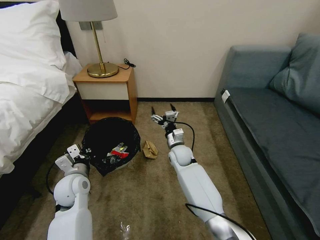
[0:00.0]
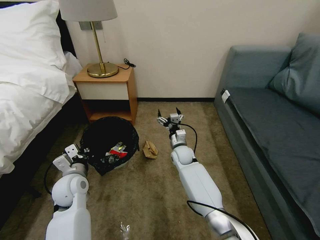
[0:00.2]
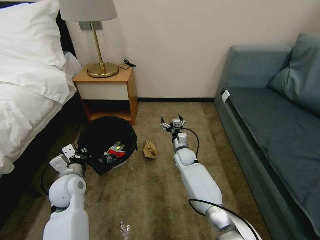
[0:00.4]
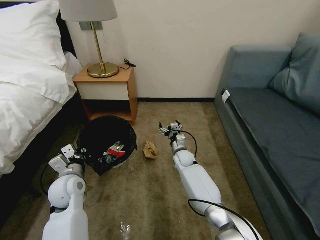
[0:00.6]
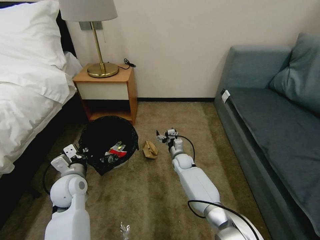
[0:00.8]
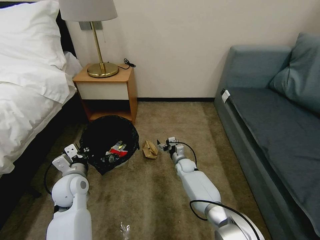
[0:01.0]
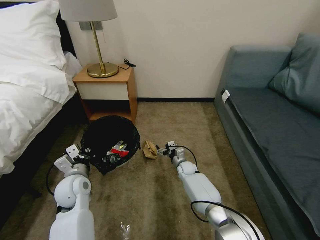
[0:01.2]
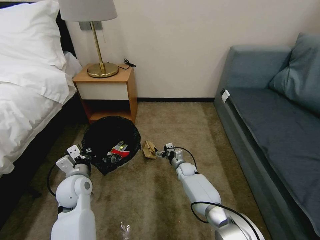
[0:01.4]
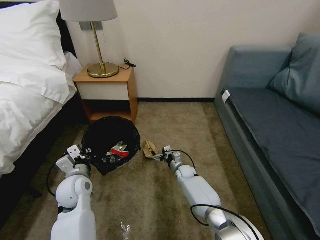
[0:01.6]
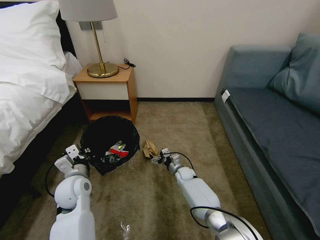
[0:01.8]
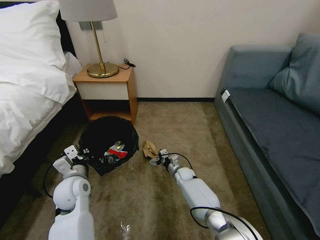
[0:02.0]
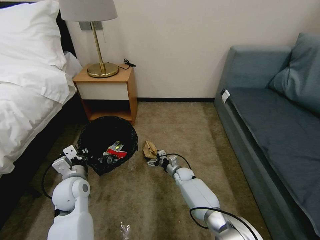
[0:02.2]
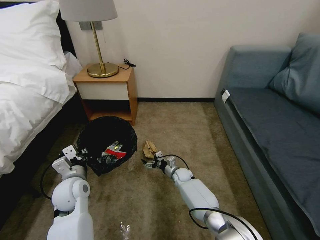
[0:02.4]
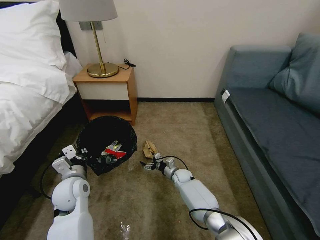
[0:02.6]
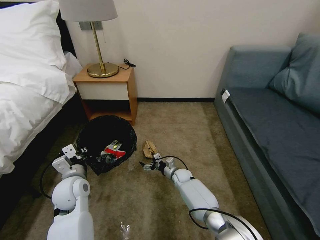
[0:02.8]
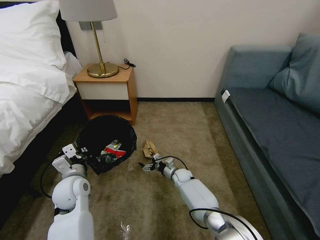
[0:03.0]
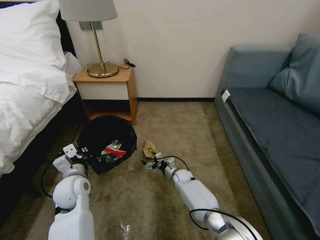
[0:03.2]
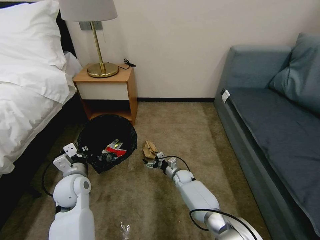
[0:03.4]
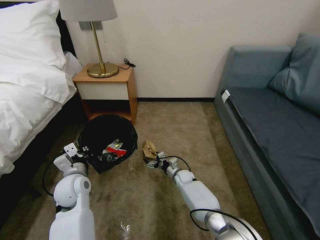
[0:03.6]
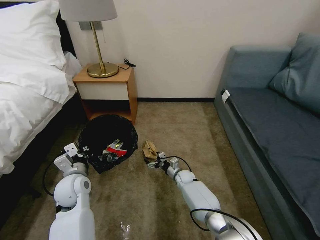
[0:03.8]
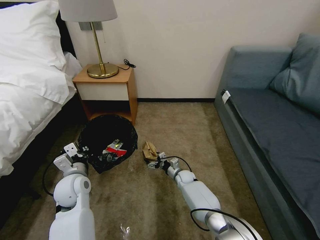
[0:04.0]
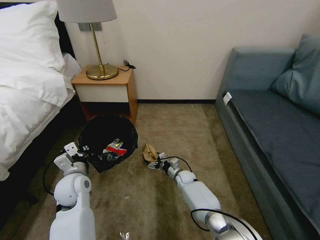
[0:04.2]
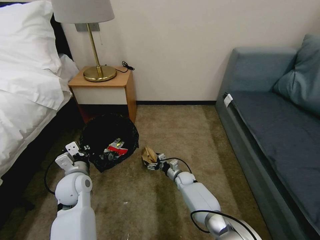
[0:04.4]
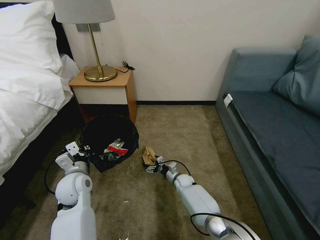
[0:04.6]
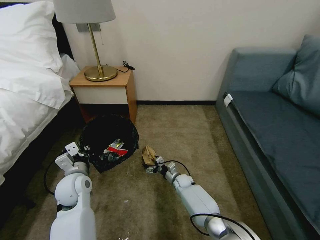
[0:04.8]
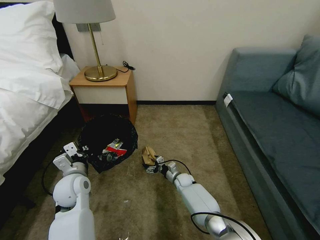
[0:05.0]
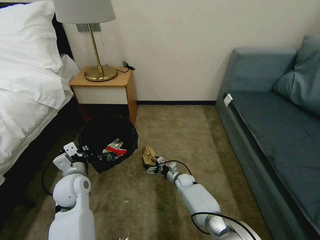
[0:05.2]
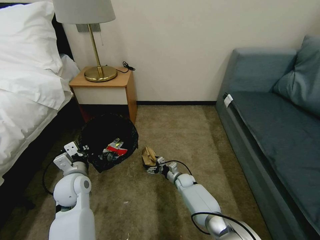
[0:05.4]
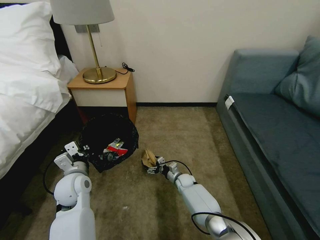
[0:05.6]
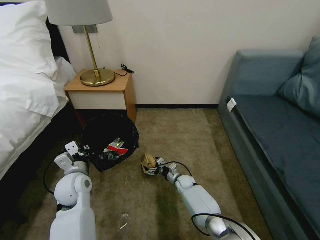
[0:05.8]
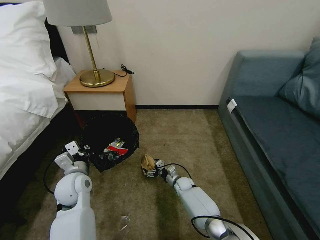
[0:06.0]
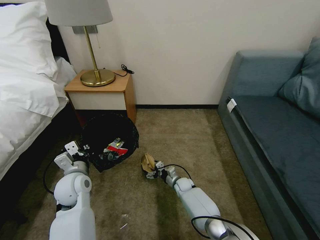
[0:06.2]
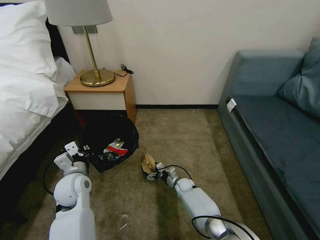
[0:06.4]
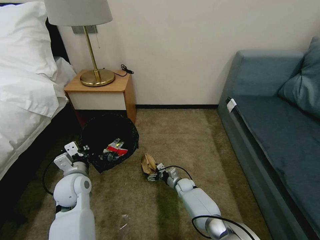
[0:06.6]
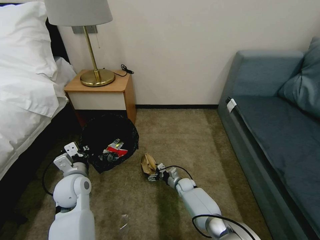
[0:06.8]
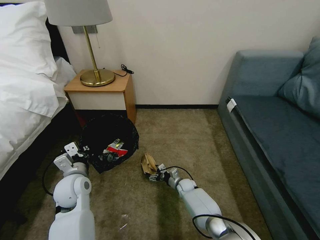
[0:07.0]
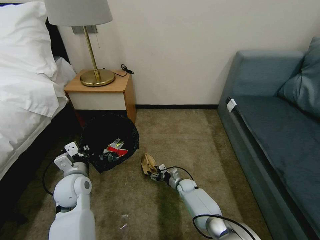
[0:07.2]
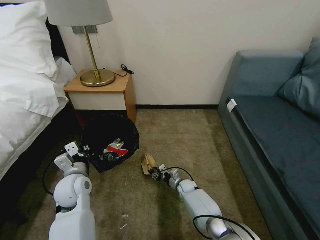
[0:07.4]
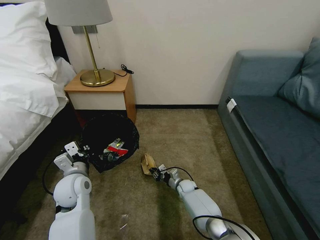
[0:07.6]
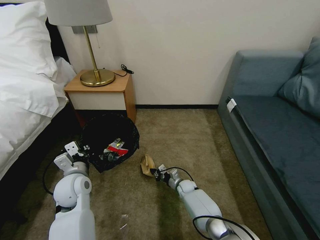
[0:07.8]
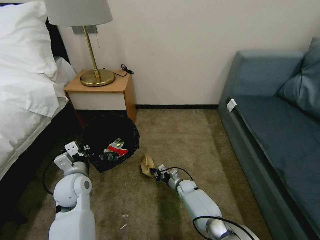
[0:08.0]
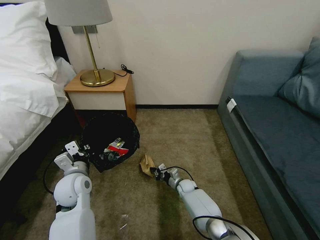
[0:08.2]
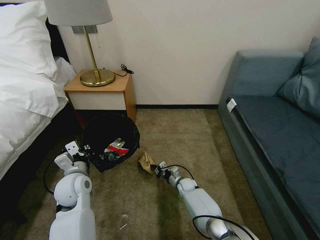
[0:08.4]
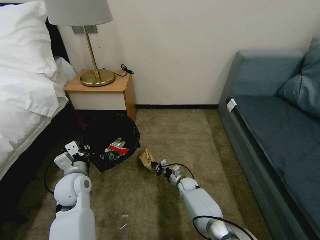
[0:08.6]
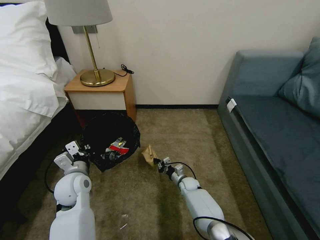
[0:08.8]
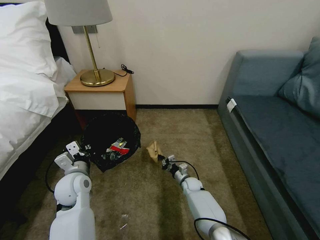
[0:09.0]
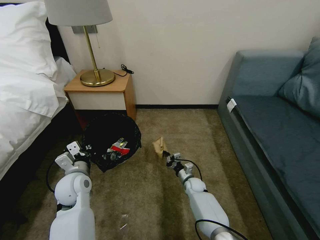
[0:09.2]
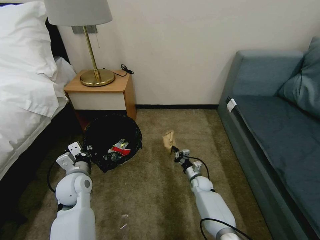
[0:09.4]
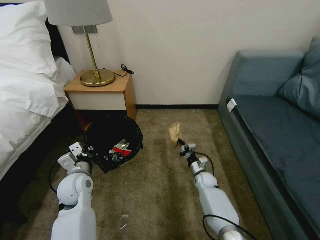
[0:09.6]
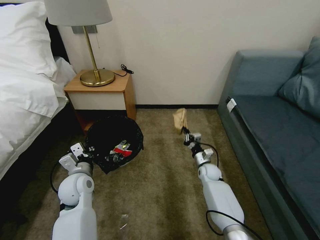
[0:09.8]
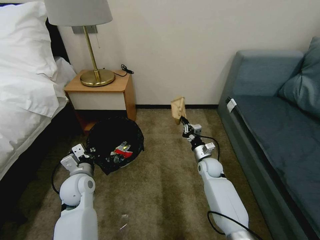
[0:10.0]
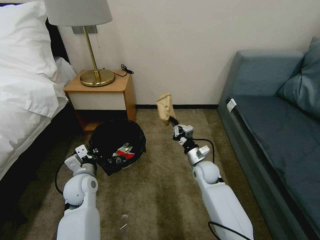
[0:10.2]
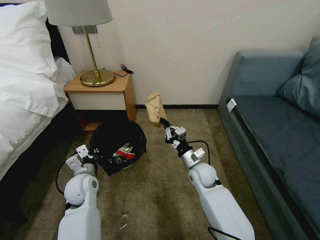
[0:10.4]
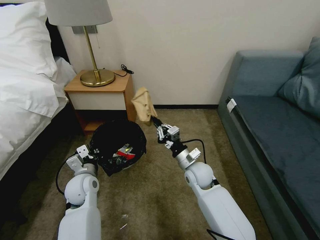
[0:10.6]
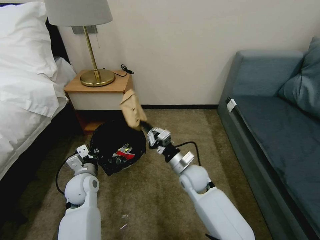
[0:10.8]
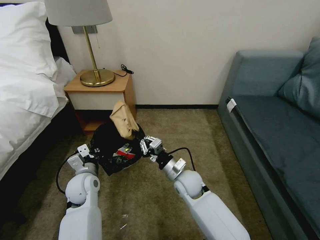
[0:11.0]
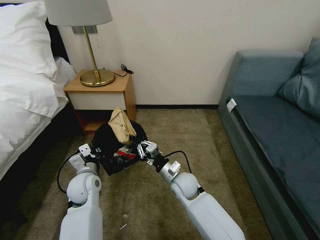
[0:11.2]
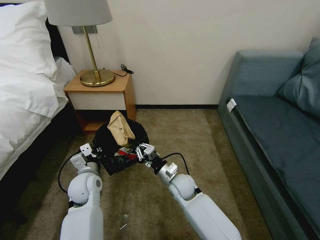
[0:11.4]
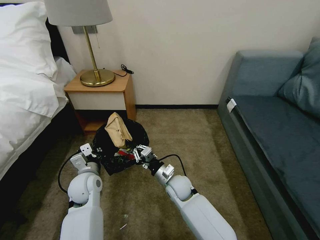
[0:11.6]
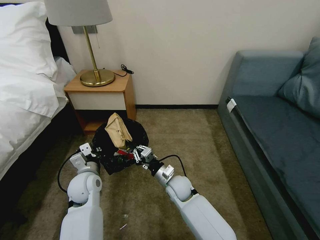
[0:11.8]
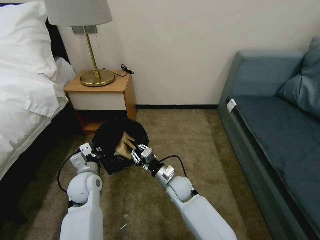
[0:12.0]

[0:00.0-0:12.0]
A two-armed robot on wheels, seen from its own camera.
Task of the whole recording: Pick up the trash bin, then pick up the garbage on the floor and place it into the trash bin.
0:00.0 to 0:01.6: The right gripper travels downward by approximately 15 cm.
0:01.6 to 0:04.4: There are only small adjustments of the grippers.
0:04.4 to 0:06.0: The grippers make only small movements.
0:06.0 to 0:07.6: The right gripper closes up.
0:07.6 to 0:09.0: The grippers stay close to where they were, moving slightly.
0:09.0 to 0:10.4: The right gripper shifts some 20 cm upward.
0:10.4 to 0:12.0: The right gripper goes roughly 10 cm to the left.

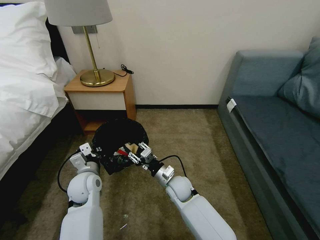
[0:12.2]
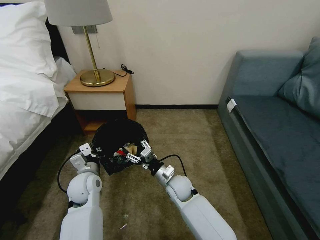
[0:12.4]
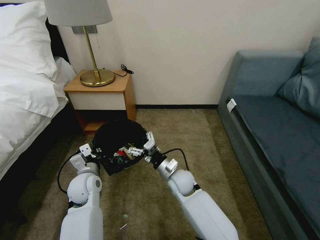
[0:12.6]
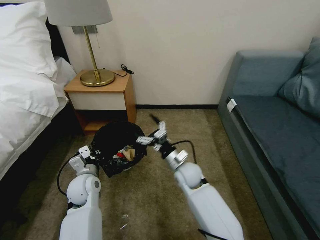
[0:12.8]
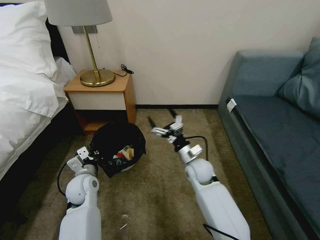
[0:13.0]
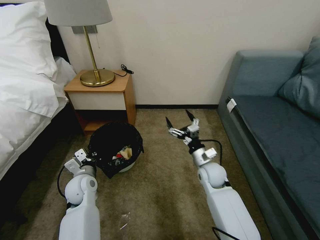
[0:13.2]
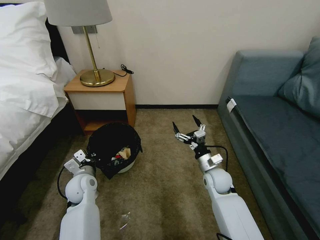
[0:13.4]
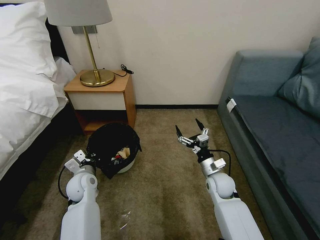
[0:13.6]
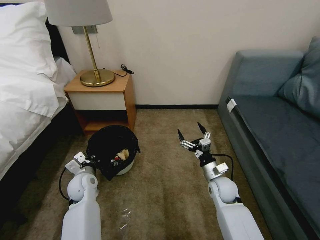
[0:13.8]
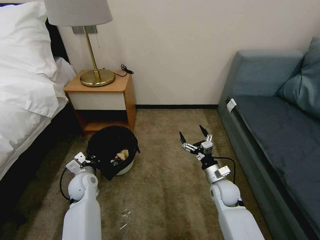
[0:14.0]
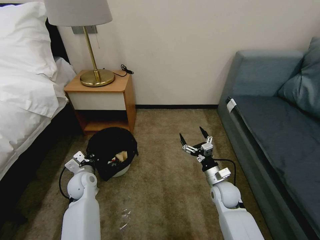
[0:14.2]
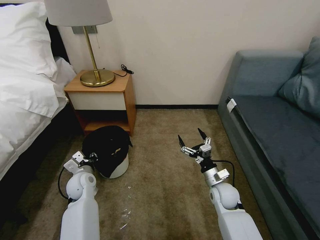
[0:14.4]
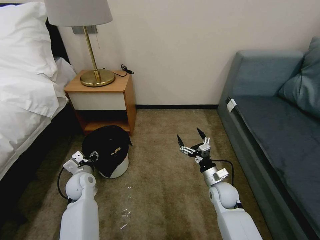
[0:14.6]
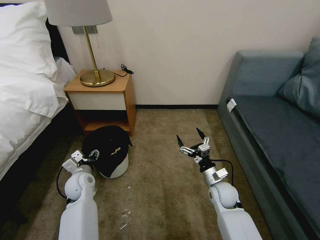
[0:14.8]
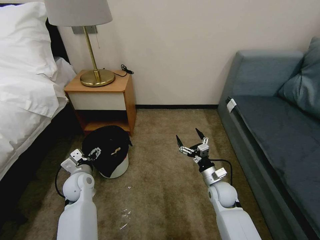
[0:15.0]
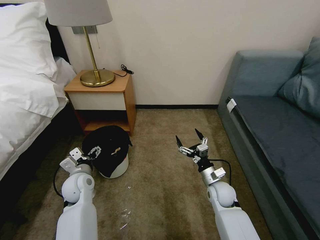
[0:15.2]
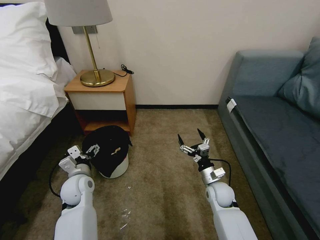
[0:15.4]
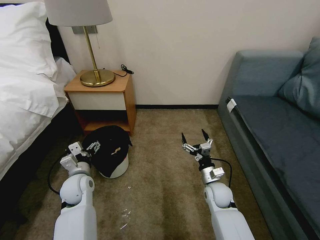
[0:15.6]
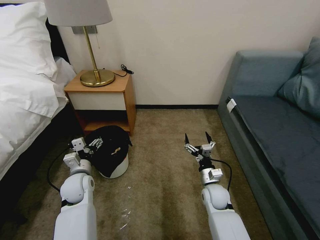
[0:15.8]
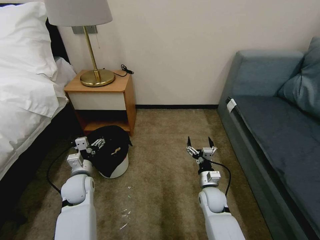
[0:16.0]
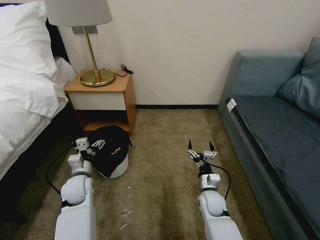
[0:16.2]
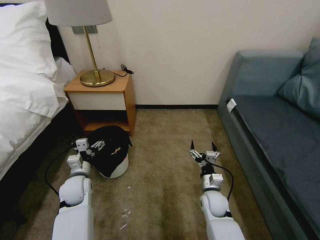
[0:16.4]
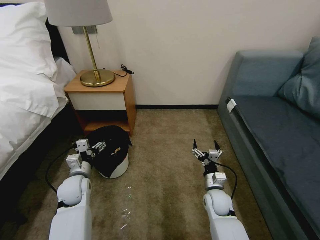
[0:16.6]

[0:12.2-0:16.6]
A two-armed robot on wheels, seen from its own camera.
Task of the whole recording: Pick up the trash bin, then pick up the garbage on the floor and place it into the trash bin.
0:12.2 to 0:13.6: The left gripper ends up roughly 5 cm from where it was, while the right gripper goes some 15 cm to the right, and opens up.
0:13.6 to 0:15.2: The left gripper opens its fingers.

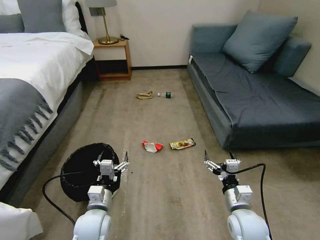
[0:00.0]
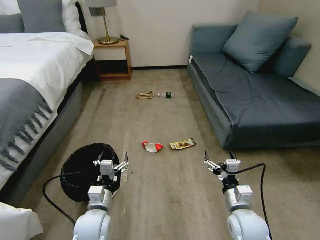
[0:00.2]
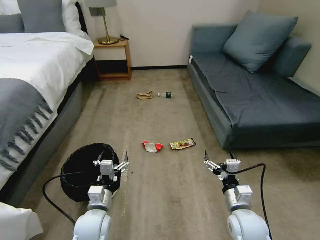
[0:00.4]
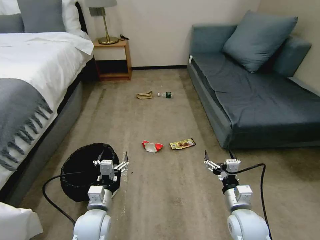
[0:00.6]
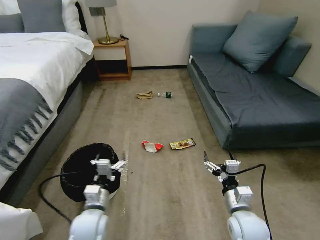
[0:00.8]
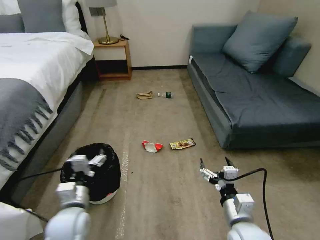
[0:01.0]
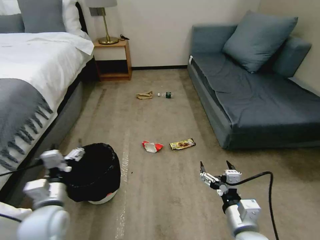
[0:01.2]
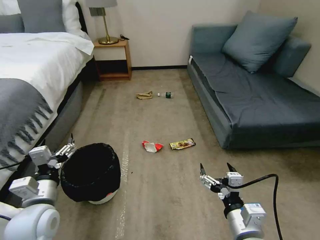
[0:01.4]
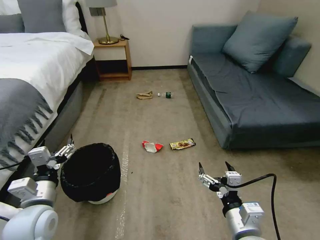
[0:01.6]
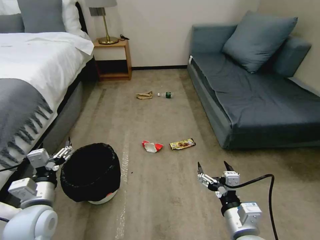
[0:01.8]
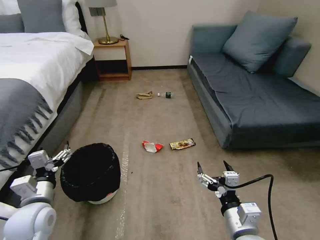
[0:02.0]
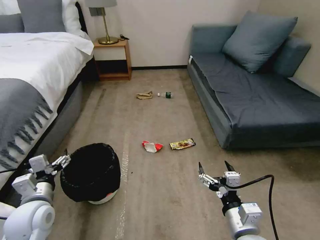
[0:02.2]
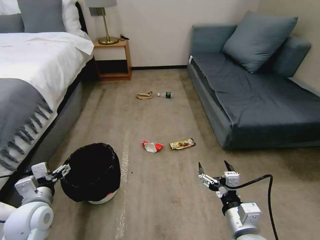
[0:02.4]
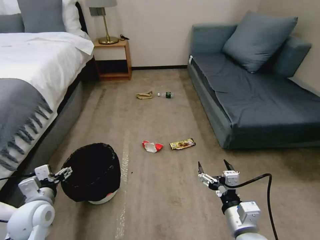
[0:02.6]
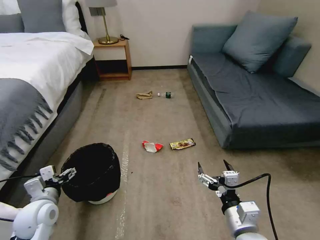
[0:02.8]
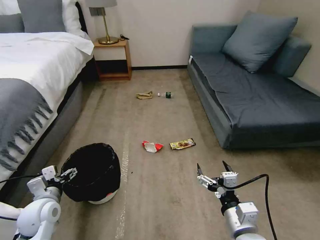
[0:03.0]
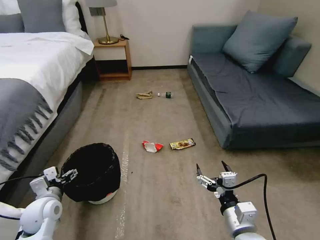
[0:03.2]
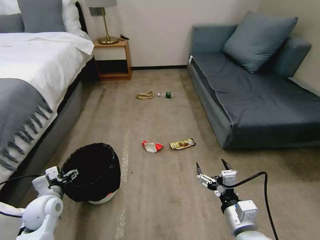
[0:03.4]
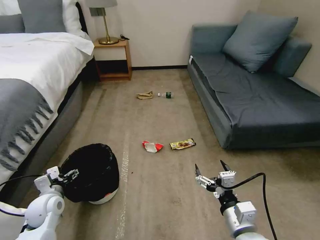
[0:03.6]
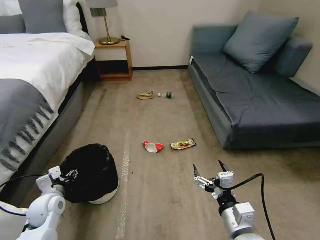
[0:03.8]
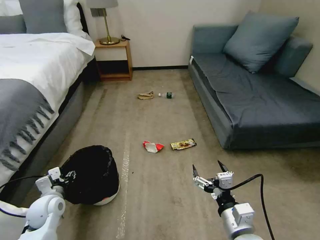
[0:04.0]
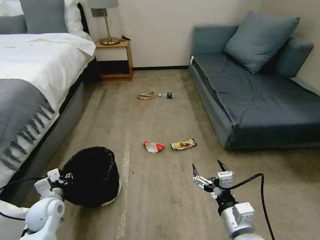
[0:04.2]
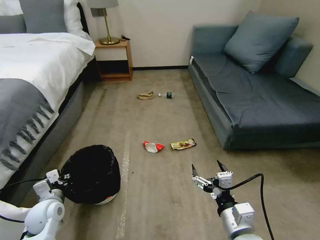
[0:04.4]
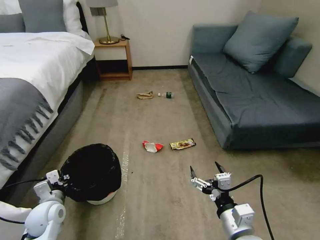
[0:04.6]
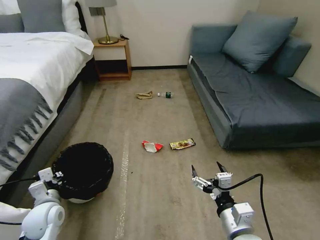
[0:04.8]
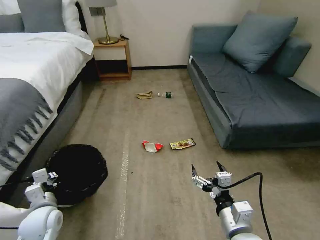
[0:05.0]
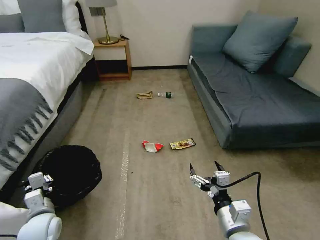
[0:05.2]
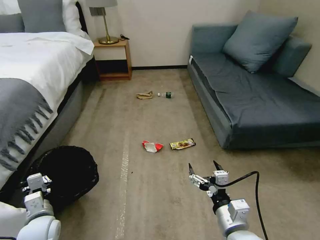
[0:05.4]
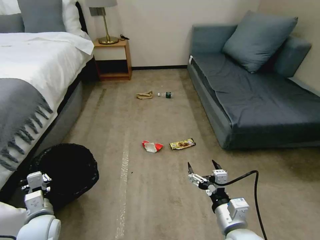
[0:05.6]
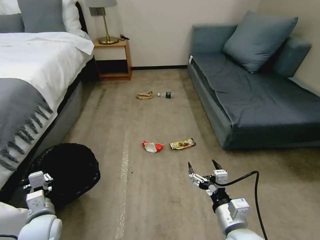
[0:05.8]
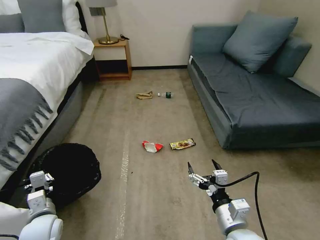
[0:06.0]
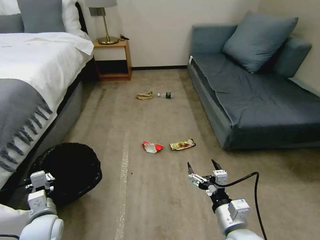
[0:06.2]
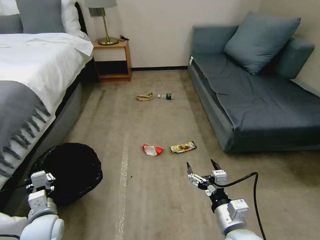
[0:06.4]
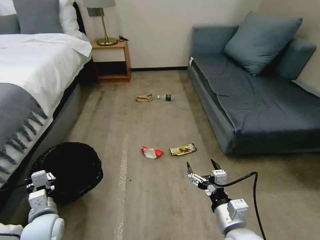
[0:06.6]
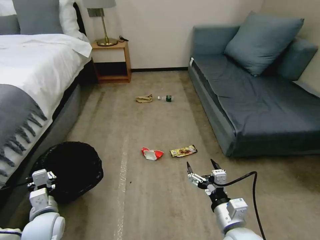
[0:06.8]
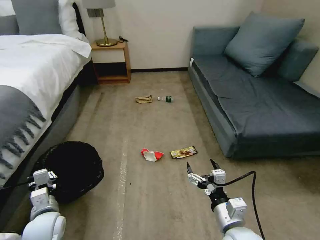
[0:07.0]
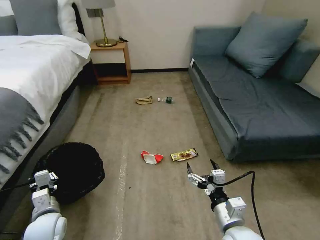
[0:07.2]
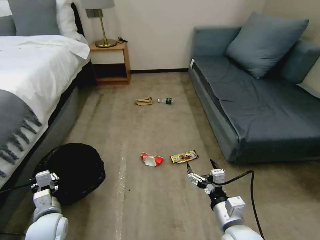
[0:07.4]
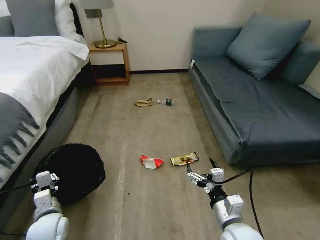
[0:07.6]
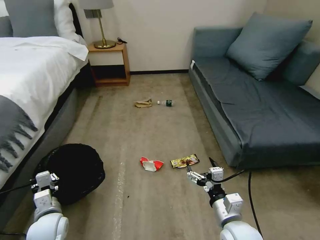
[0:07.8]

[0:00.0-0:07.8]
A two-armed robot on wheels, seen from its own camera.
Task of the whole recording: Pick up the trash bin, then pick up the garbage on the floor and place it into the trash bin.
0:01.6 to 0:03.2: The left gripper is displaced downward and to the left by approximately 10 cm.
0:03.2 to 0:04.6: The left gripper closes up.
